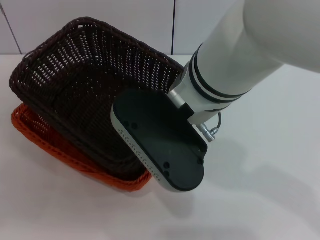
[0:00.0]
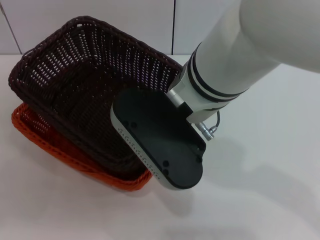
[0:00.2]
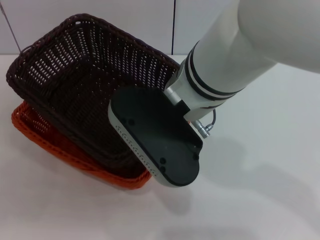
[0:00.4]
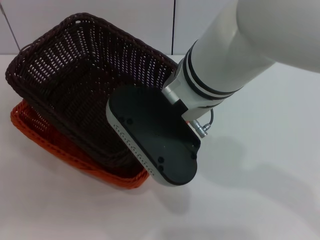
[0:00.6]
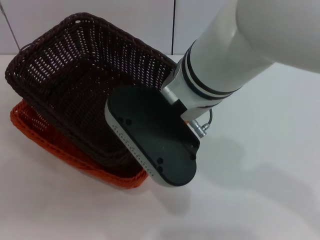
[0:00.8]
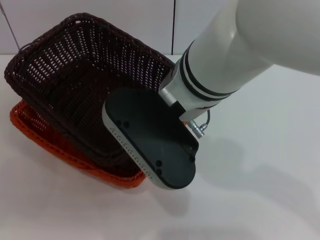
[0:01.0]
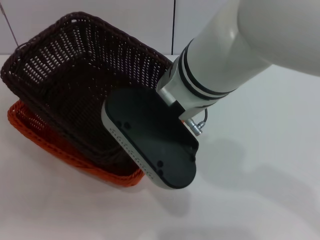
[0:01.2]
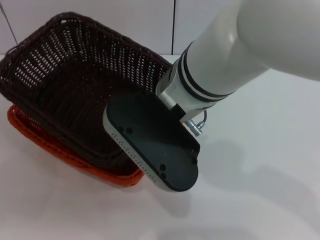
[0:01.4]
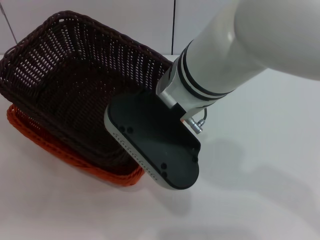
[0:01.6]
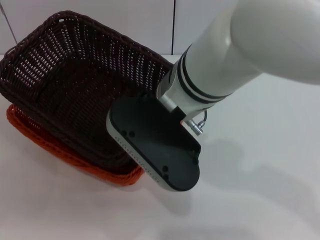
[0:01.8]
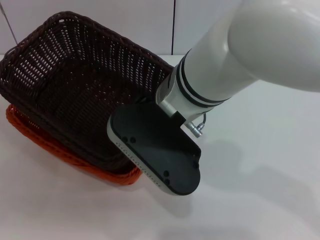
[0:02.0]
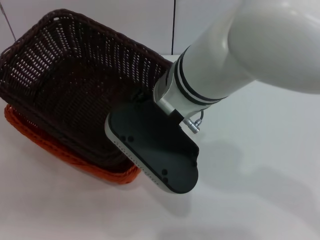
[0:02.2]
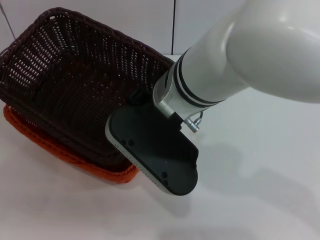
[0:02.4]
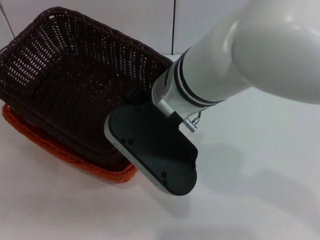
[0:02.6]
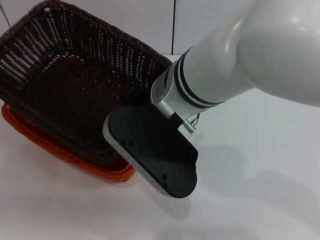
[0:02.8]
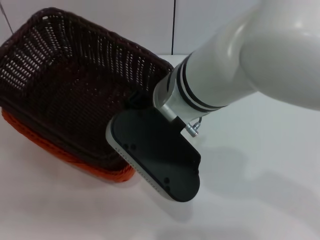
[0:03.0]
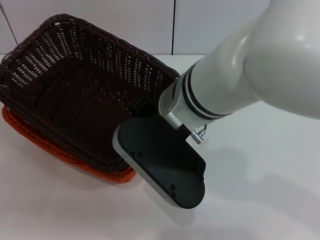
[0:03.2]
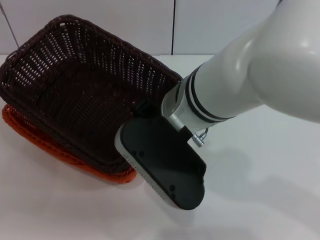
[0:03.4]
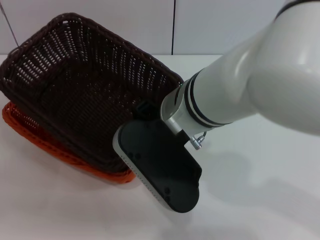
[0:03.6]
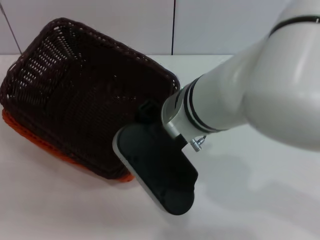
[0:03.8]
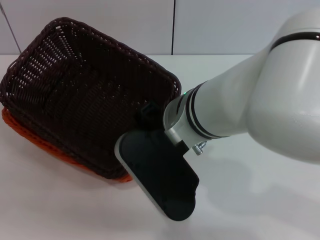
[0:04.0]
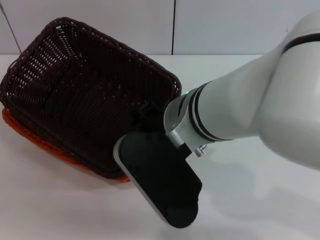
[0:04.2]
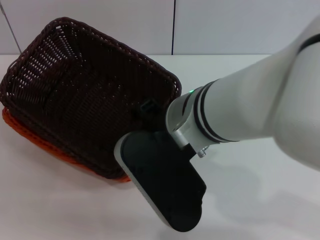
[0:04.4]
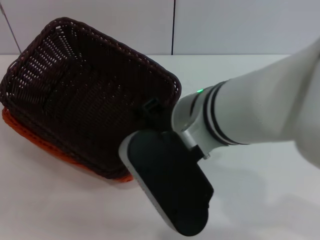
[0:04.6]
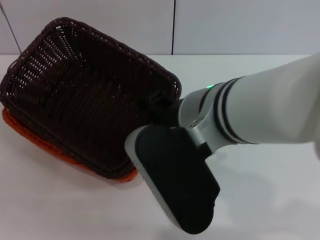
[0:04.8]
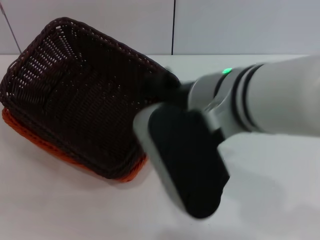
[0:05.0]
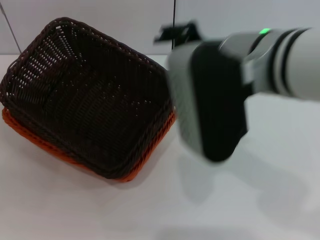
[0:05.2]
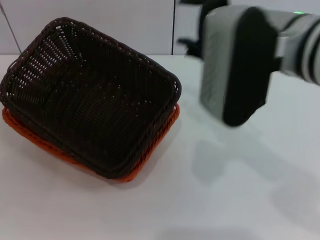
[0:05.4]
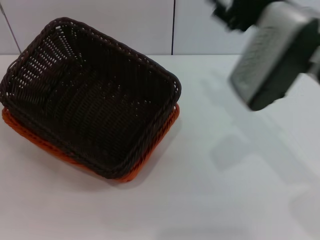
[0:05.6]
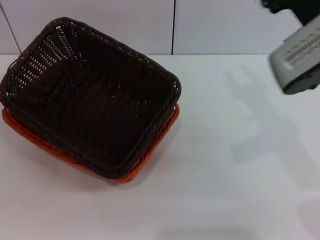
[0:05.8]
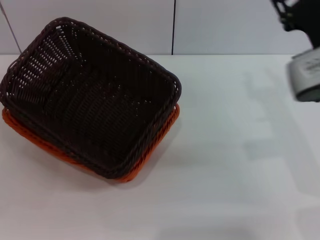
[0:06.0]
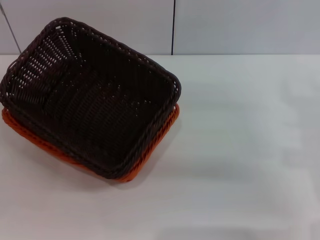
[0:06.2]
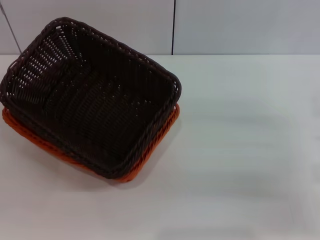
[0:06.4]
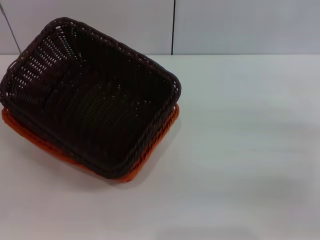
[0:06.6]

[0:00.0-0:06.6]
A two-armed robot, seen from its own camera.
Step, 0:00.0 to 0:04.2: Place the dark basket on the light basket with the right gripper.
0:00.0 to 0:01.6: There are only small adjustments of the grippers.
0:03.2 to 0:05.0: The right gripper moves about 5 cm, and opens up.
0:05.0 to 0:06.6: The right gripper is displaced to the right and downward by about 30 cm.
